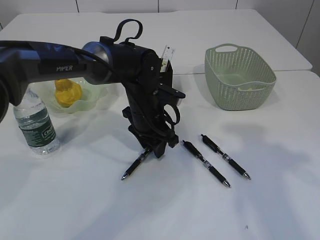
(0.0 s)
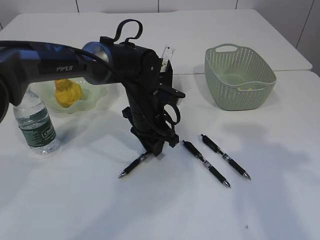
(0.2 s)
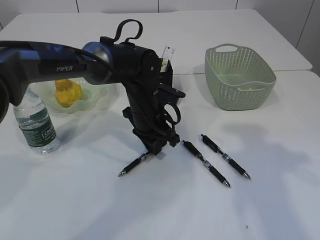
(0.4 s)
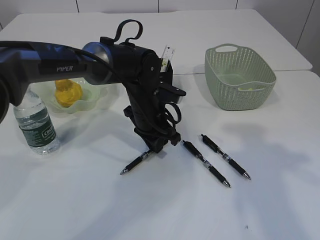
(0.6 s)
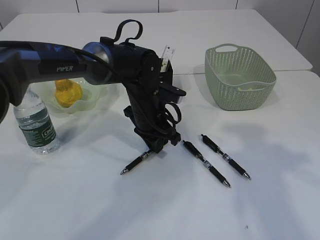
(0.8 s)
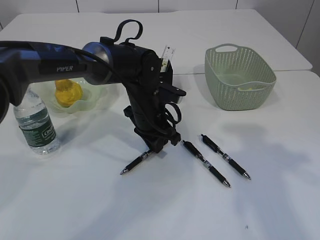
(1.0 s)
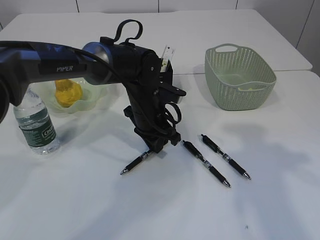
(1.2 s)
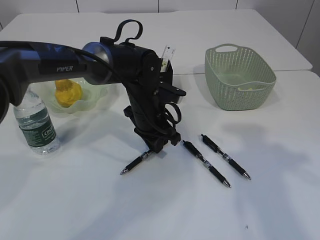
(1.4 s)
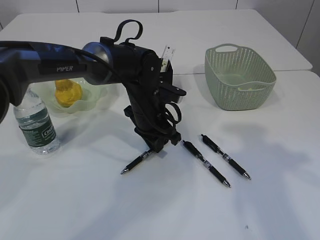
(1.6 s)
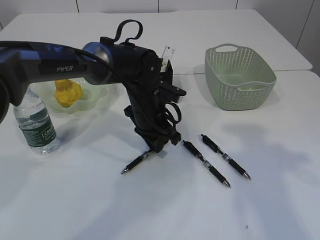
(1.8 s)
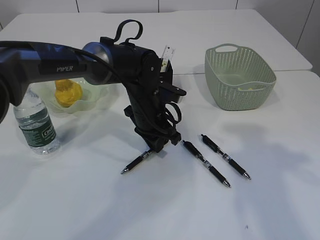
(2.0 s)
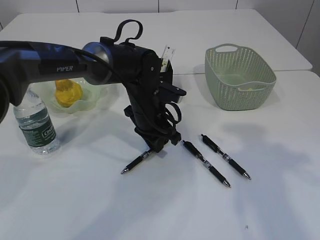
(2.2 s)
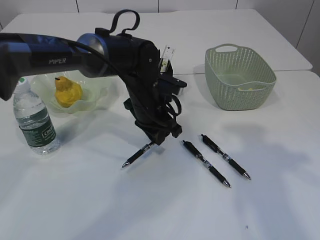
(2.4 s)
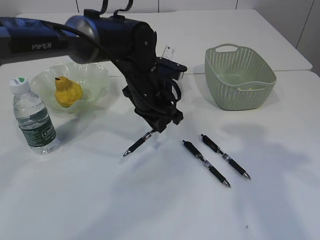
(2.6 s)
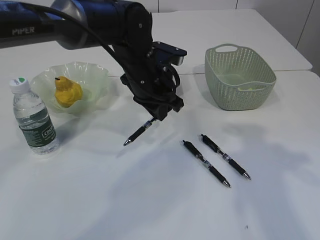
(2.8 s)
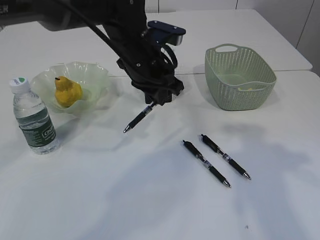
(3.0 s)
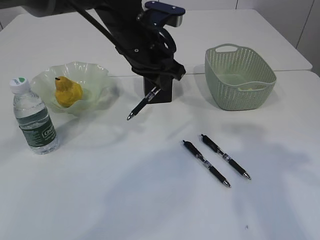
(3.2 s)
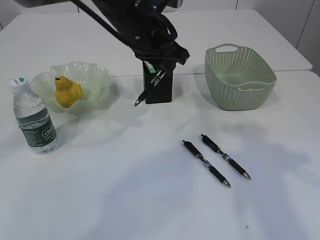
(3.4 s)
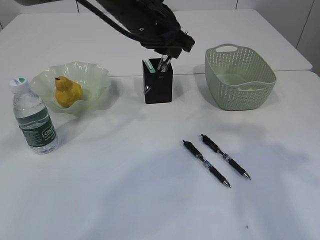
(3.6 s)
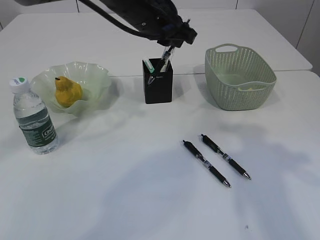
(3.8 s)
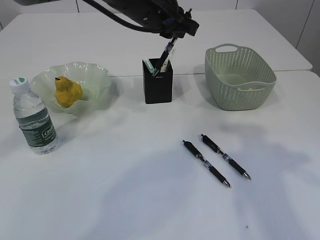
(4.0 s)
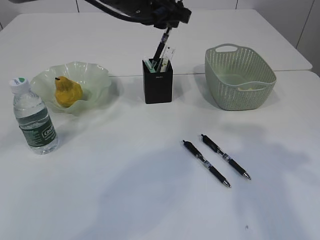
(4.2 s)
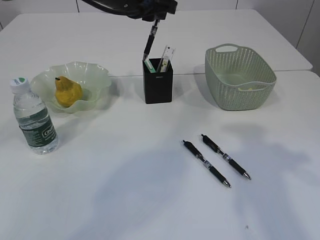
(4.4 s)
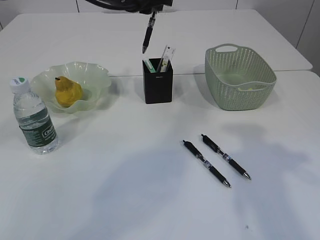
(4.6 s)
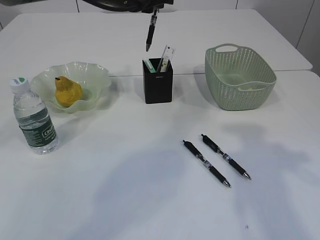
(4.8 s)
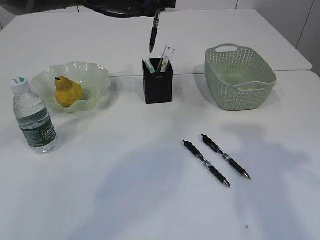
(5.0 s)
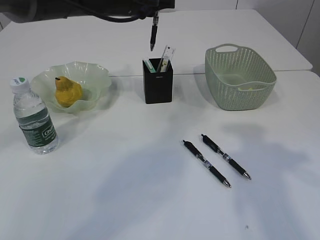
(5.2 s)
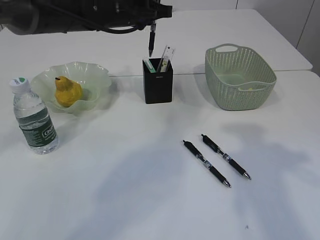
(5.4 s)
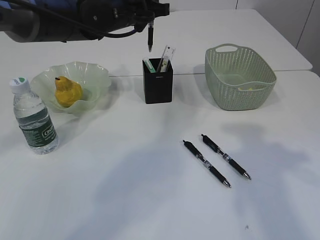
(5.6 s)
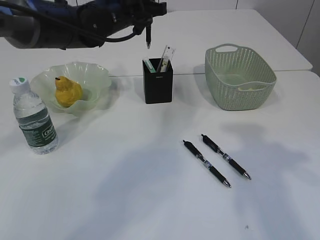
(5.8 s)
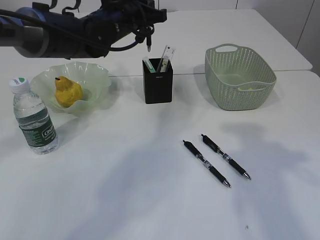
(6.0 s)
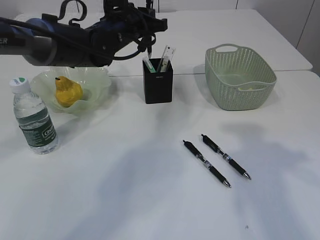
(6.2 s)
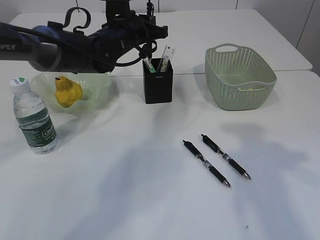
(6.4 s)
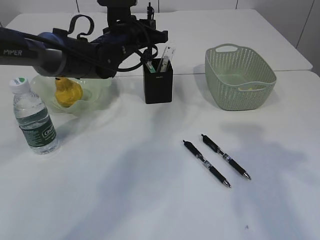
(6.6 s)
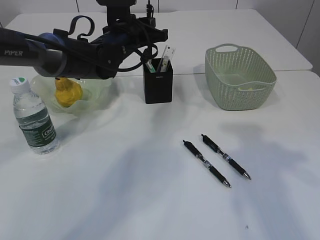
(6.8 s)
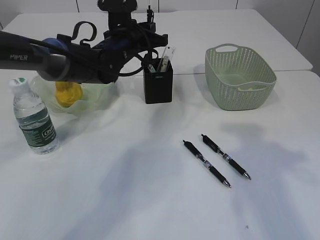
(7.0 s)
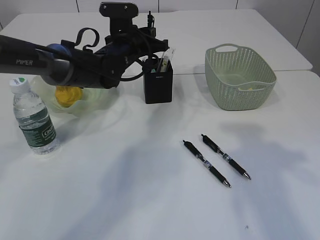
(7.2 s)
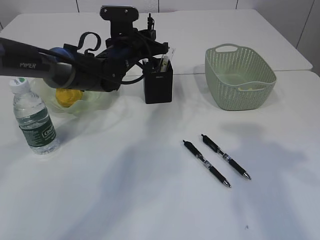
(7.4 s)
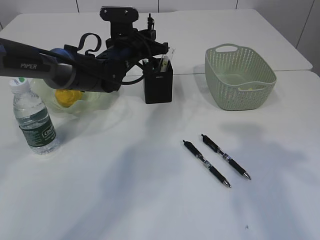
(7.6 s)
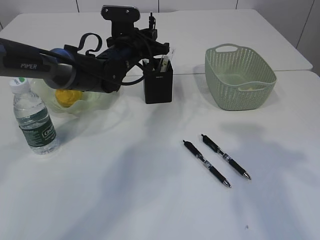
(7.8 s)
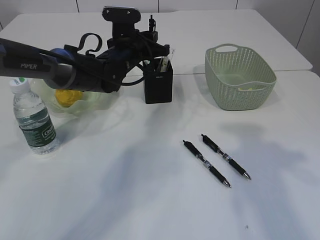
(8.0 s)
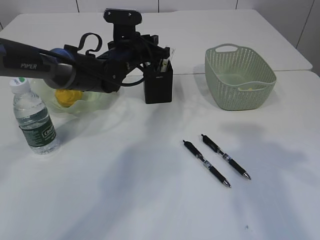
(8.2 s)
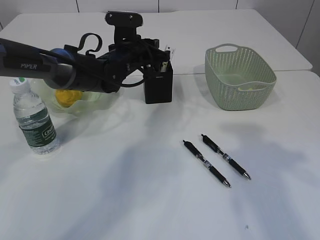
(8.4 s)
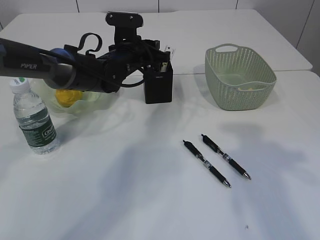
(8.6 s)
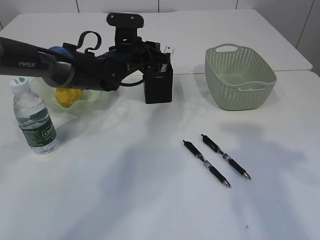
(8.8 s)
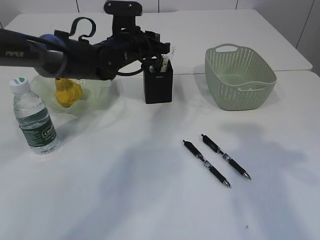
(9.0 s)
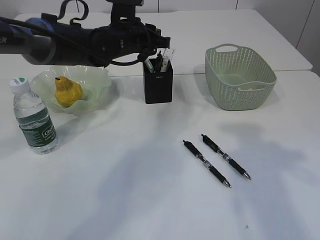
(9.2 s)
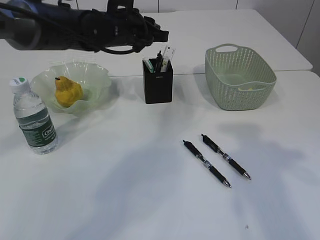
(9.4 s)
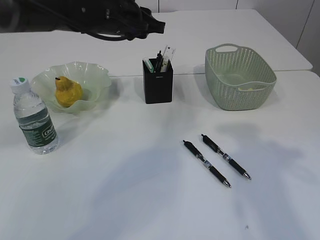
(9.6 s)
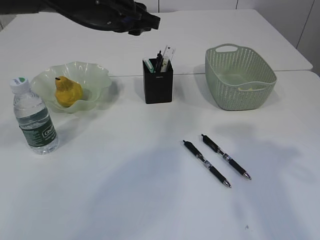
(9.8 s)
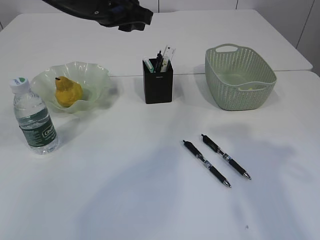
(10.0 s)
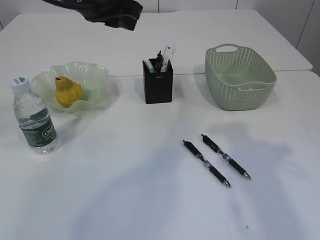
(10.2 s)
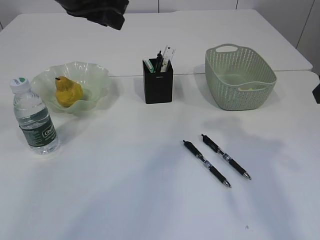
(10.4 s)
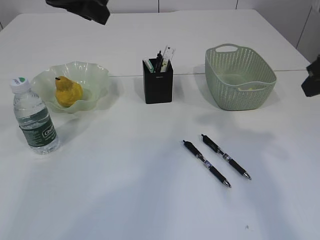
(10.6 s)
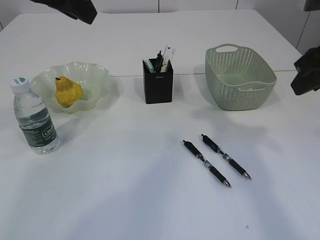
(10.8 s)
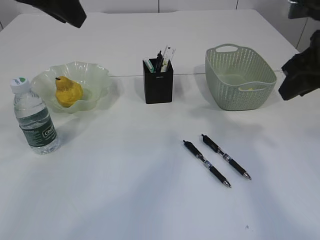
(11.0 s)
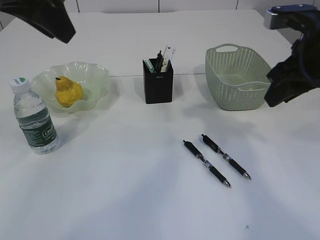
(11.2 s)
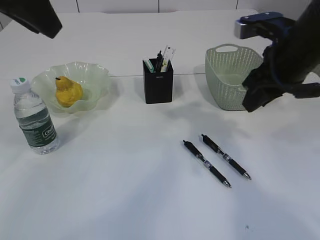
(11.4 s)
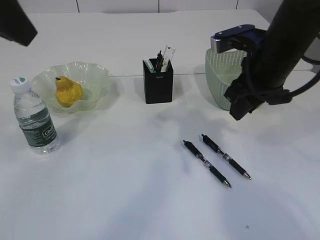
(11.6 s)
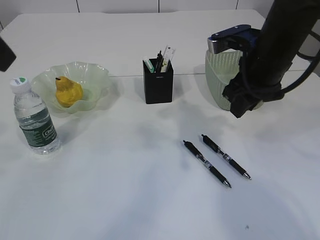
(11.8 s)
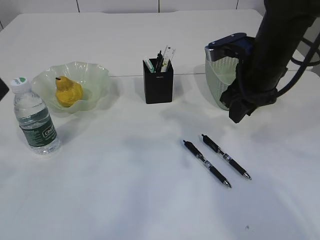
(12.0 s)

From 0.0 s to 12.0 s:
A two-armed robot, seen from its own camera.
Step, from 0.0 s to 3.2 s: Pick up the pen with left arm.
Step, from 3.4 s to 9.4 s: Place the pen into the pen holder.
From 0.0 s to 1.6 s: The left gripper closes.
From 1.6 s to 3.0 s: The left gripper heads upward, covering some 10 cm.
From 3.0 s to 4.4 s: The left gripper moves upward and forward, some 10 cm.
From 4.4 s to 6.0 s: The left gripper is displaced downward by roughly 5 cm.
From 6.0 s to 7.6 s: The left gripper heads downward, covering about 5 cm.
From 7.6 s to 9.0 s: The grippers stay close to where they were, moving slightly.
From 9.0 s to 10.4 s: The left gripper moves upward and backward, some 20 cm.
From 10.4 s to 12.0 s: The right gripper is displaced forward, to the left and downward by some 15 cm. The left gripper is displaced backward and to the left by roughly 20 cm.

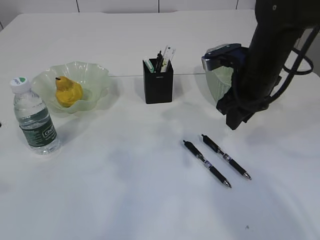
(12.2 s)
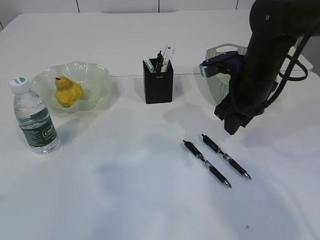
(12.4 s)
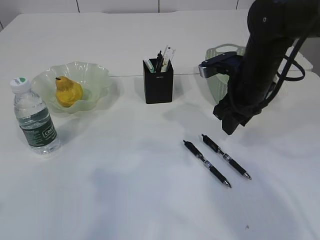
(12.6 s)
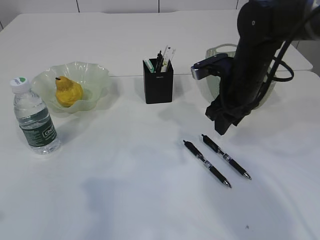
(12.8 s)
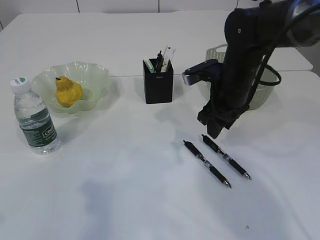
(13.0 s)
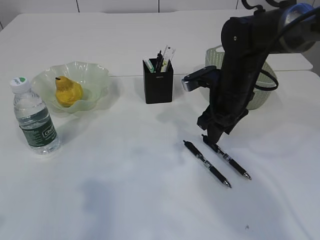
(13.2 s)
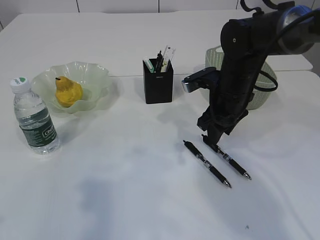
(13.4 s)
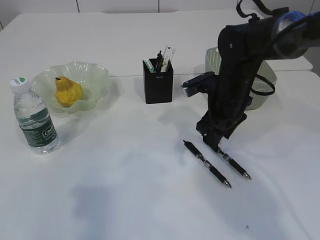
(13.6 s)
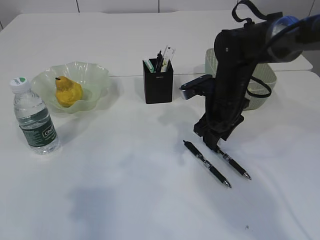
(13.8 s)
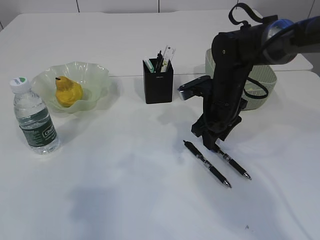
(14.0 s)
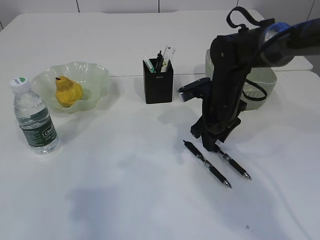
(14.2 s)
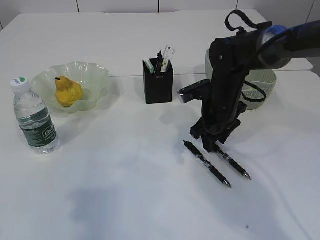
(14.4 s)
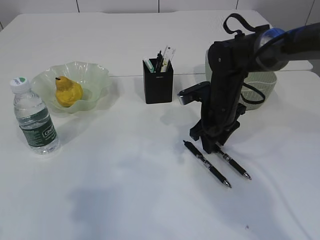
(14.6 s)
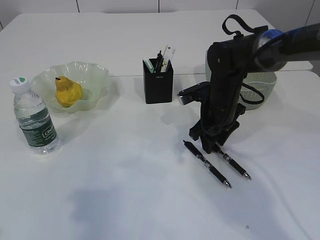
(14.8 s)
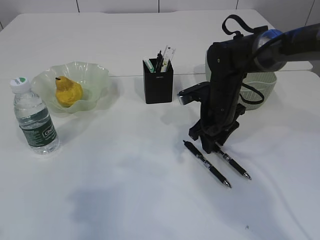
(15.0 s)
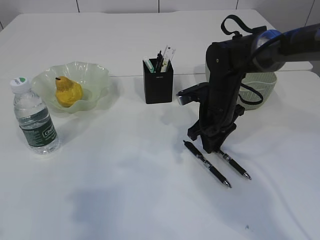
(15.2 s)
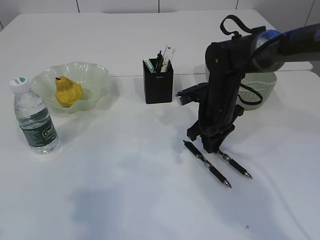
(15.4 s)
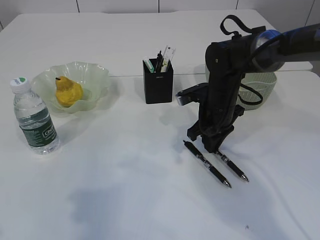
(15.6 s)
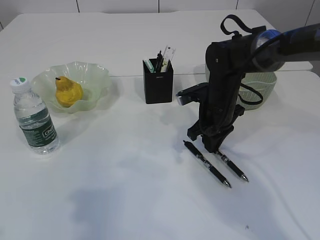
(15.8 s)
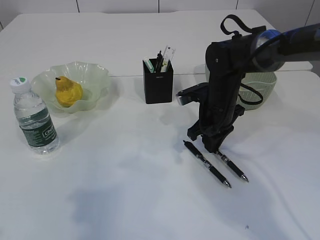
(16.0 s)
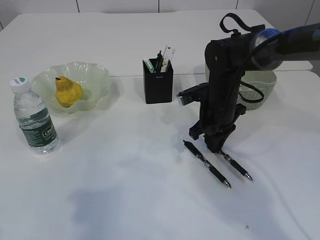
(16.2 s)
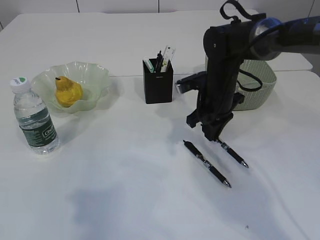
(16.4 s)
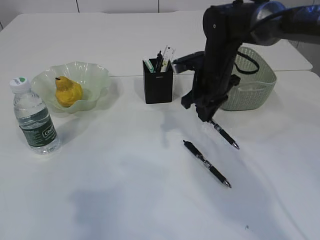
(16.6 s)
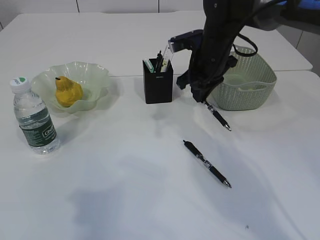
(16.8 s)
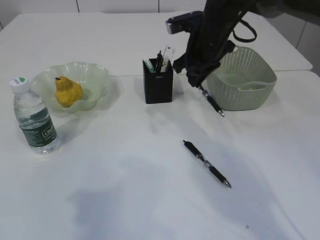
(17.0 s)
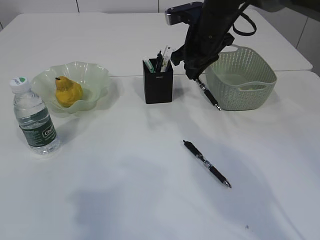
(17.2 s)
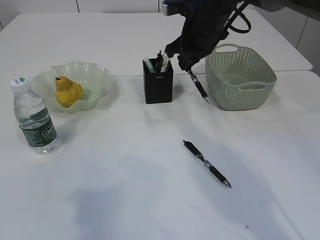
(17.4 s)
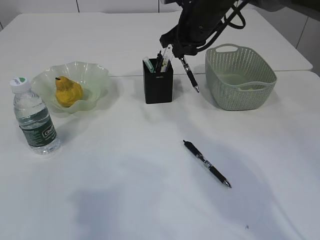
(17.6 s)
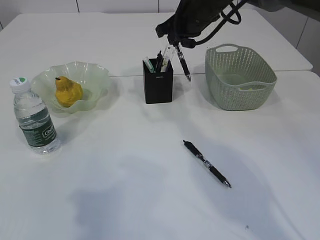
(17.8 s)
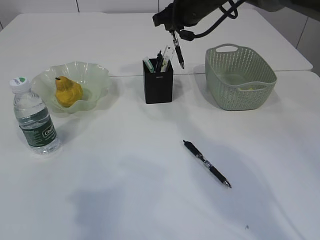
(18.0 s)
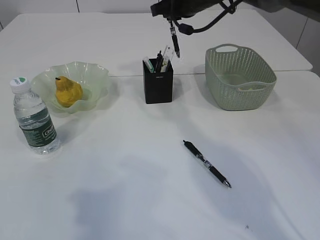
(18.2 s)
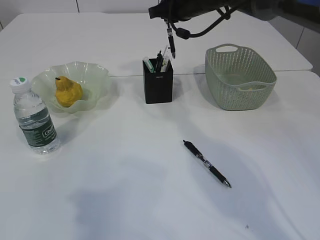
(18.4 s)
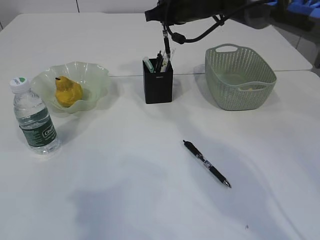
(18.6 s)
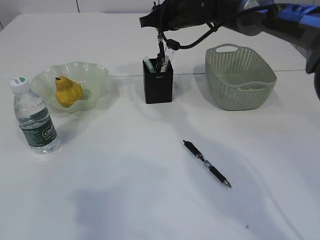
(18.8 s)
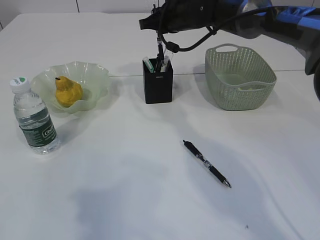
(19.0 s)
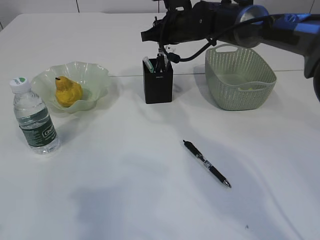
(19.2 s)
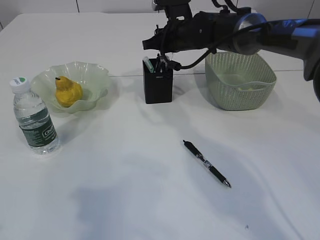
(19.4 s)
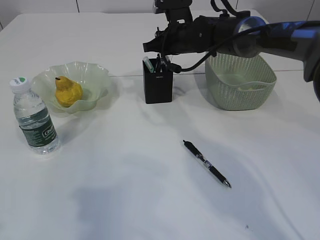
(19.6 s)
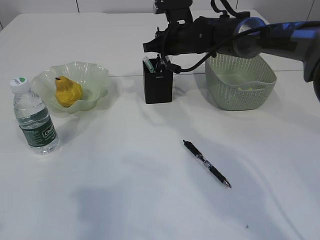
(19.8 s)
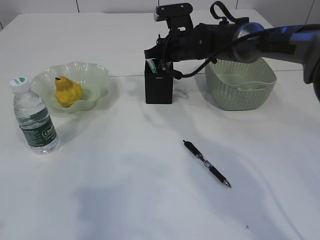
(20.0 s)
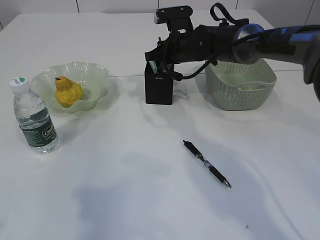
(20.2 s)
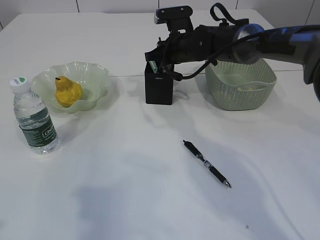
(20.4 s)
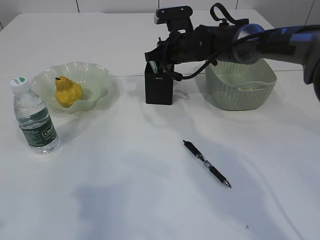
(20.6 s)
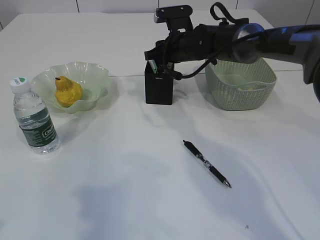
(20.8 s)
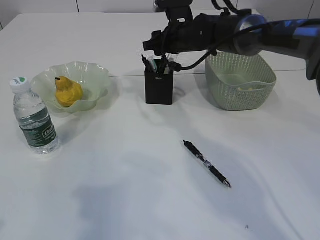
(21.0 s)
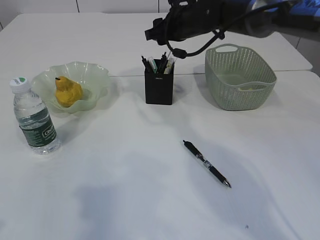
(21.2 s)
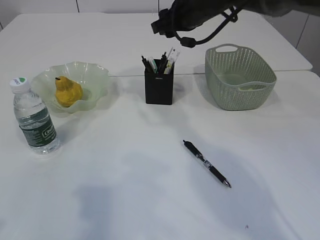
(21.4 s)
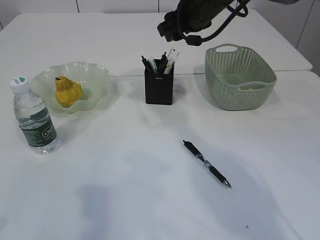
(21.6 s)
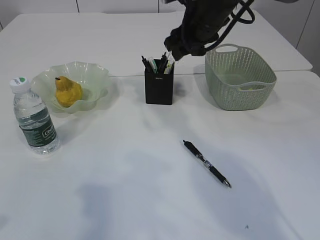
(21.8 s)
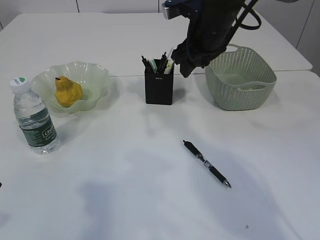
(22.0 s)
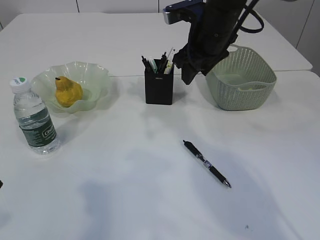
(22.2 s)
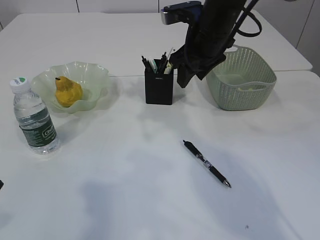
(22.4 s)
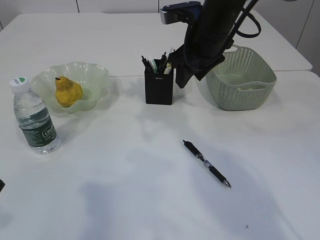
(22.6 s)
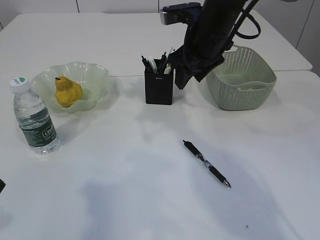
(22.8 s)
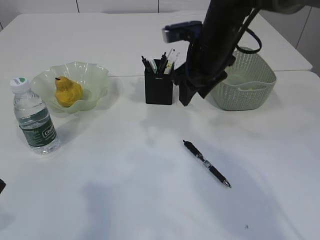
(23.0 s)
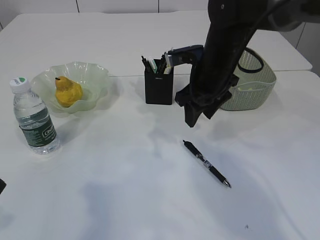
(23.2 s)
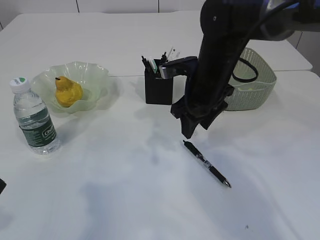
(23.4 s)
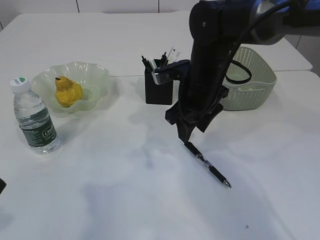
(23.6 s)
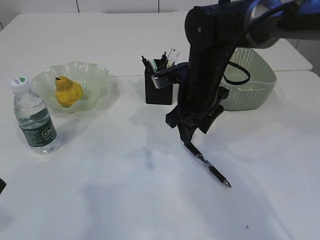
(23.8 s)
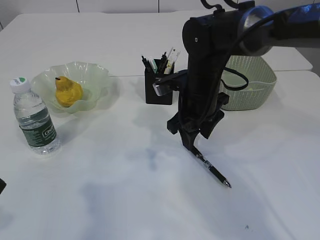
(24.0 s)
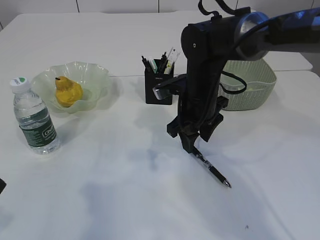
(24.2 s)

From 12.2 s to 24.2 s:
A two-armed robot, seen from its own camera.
Step, from 12.2 s to 16.8 s: Pick up the pen with right arm.
Step, from 17.0 s to 21.6 s: Place the pen into the pen holder.
From 12.2 s to 13.8 s: Both grippers travel together downward, about 5 cm.
From 13.8 s to 15.2 s: The grippers stay close to where they were, moving slightly.
From 15.2 s to 16.6 s: The right gripper travels upward by roughly 5 cm, and closes up.
From 16.6 s to 18.2 s: The right gripper goes roughly 15 cm upward and forward.
From 18.2 s to 19.8 s: The right gripper heads downward, covering approximately 10 cm.
From 19.8 s to 21.2 s: The right gripper moves about 5 cm, and opens up.
From 21.2 s to 22.6 s: The right gripper moves backward, approximately 10 cm.
From 22.6 s to 24.2 s: The right gripper heads downward, covering roughly 10 cm.
